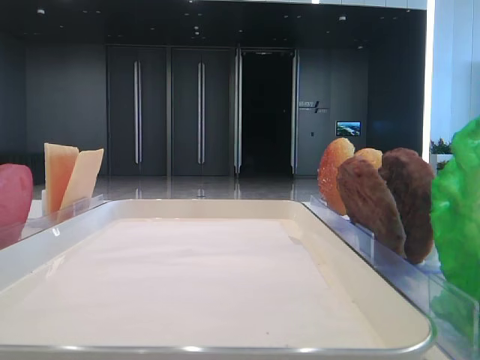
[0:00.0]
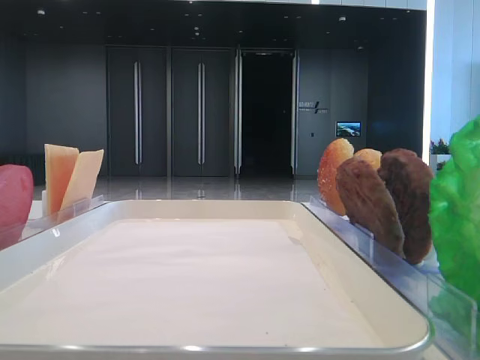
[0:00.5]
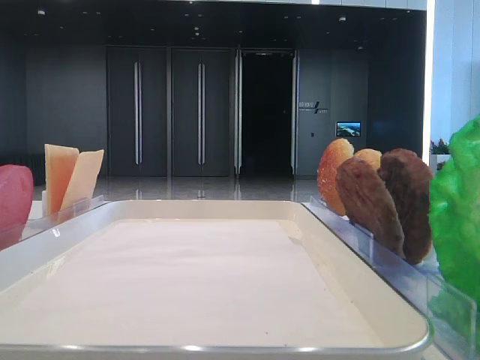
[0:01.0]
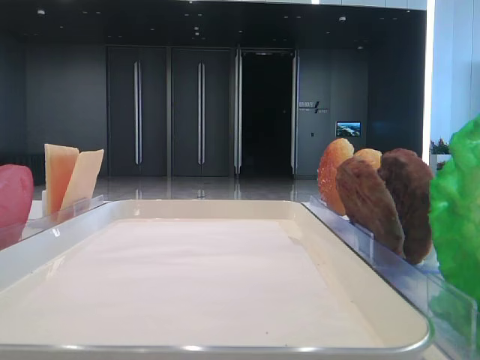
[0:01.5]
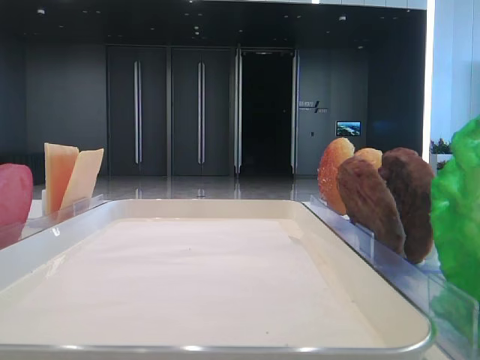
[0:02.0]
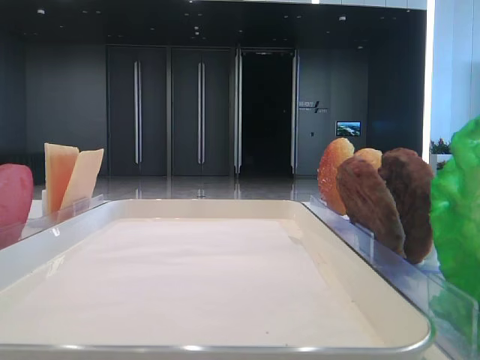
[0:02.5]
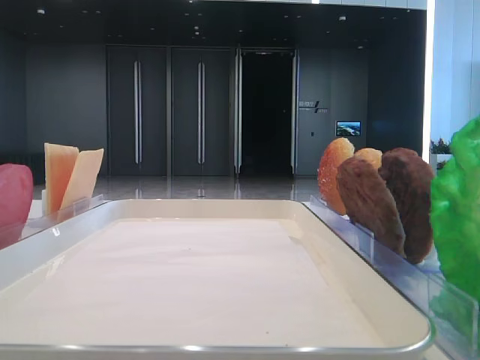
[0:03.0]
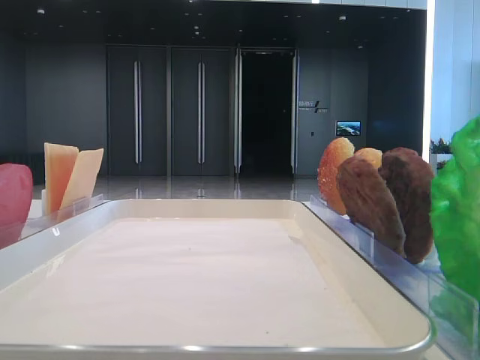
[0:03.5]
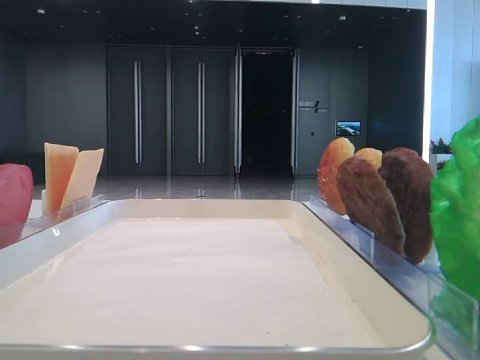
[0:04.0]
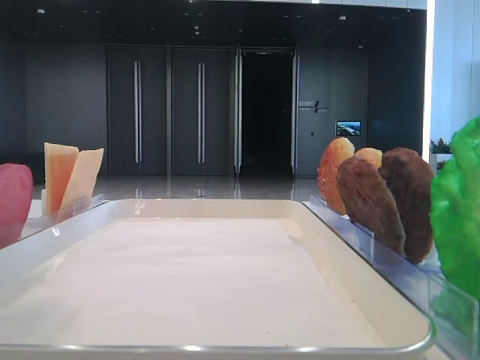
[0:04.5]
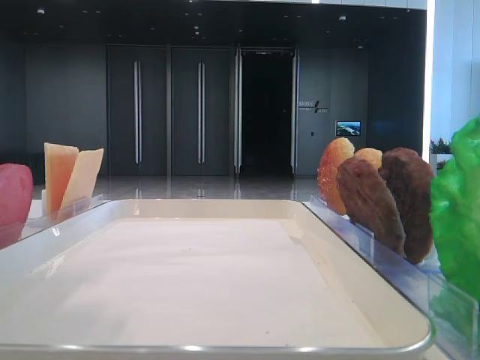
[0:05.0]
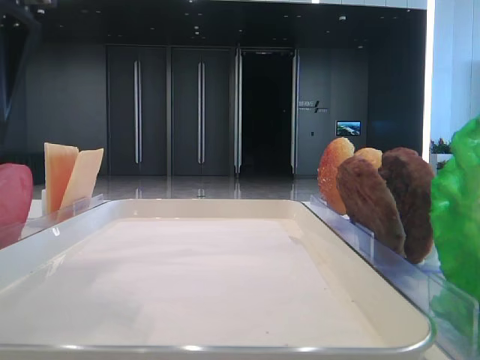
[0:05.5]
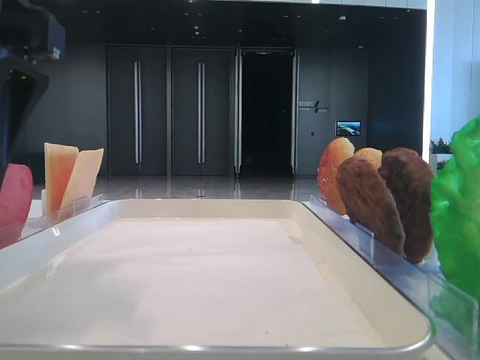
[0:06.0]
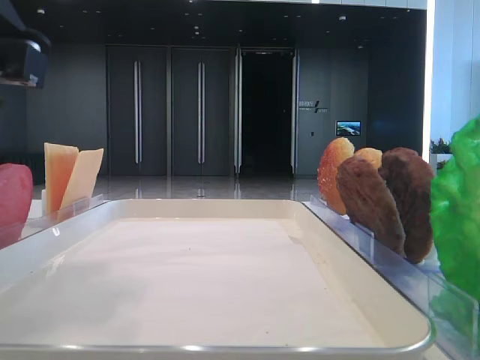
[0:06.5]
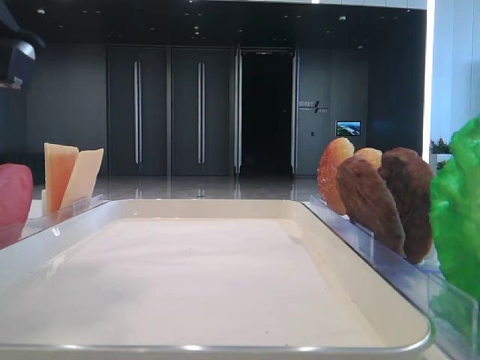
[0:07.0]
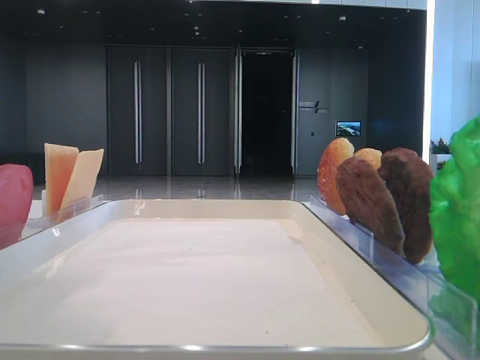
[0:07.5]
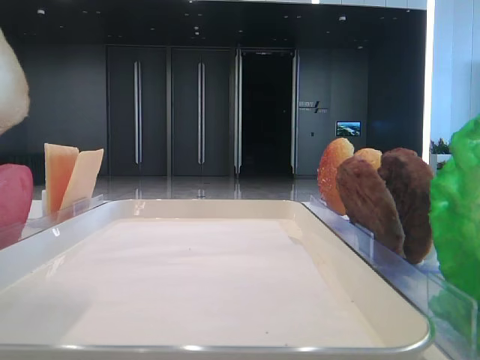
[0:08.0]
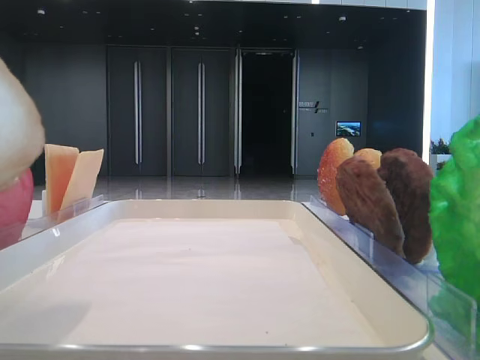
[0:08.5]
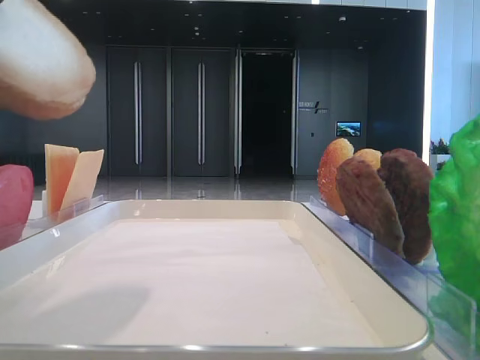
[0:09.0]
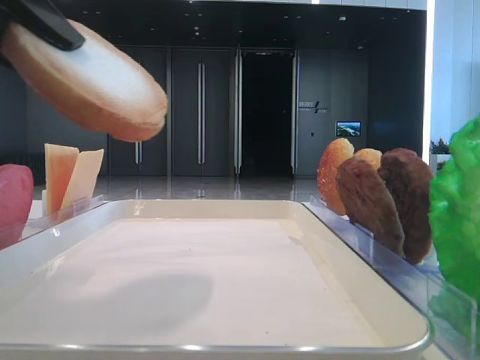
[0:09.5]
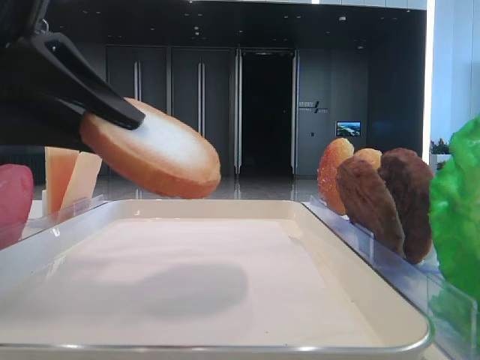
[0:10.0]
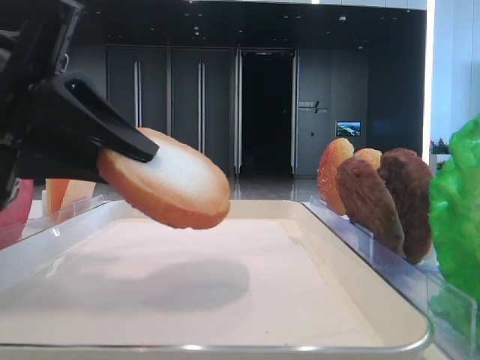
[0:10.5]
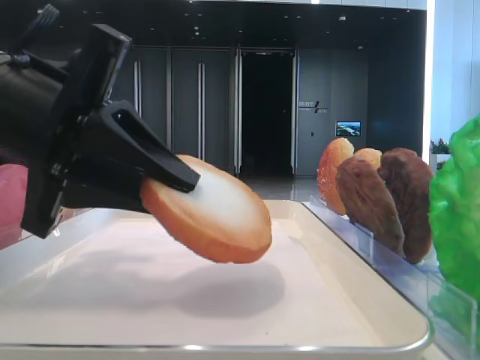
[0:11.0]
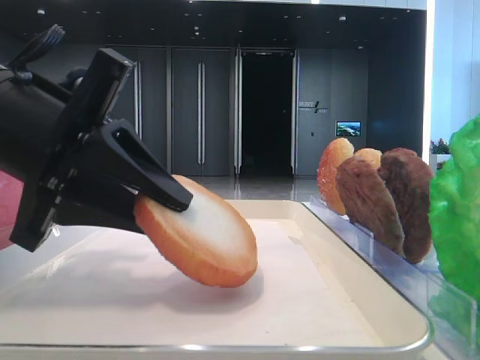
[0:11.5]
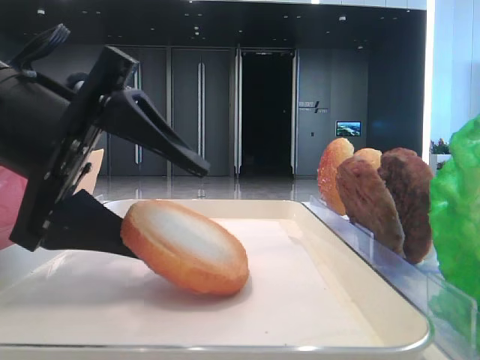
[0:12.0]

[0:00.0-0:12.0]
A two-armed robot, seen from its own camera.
Step, 0:00.0 to 0:06.5: Pick up the bottom bread with the left hand.
0:04.0 to 0:06.0: The left gripper shifts about 20 cm to the right and downward.
0:06.0 to 0:08.0: The left gripper travels upward and backward by approximately 10 cm, and closes.
0:08.0 to 0:10.0: The left gripper is displaced downward and forward by some 15 cm.
0:10.0 to 0:12.0: The left gripper ends up some 5 cm from where it was, and opens up.

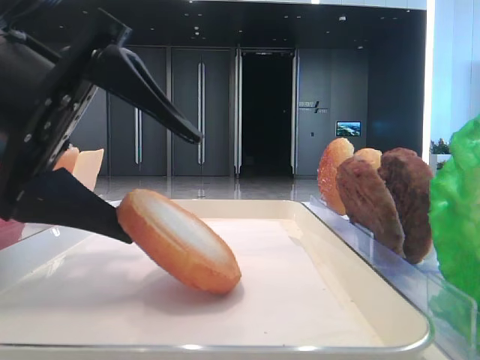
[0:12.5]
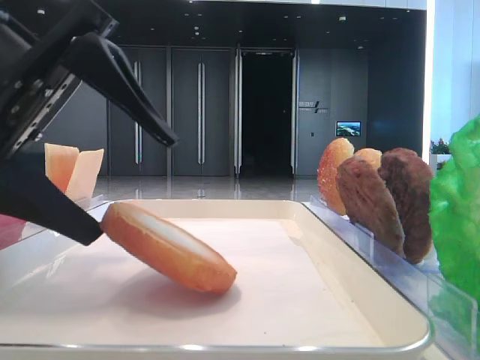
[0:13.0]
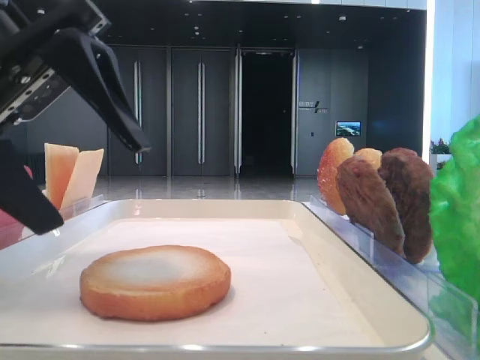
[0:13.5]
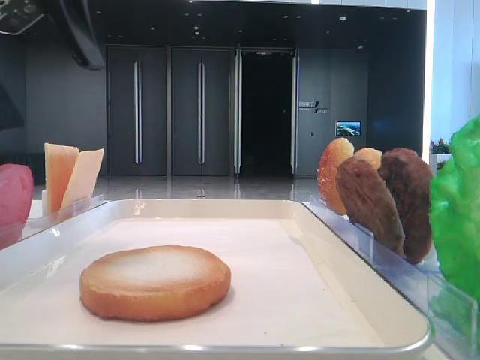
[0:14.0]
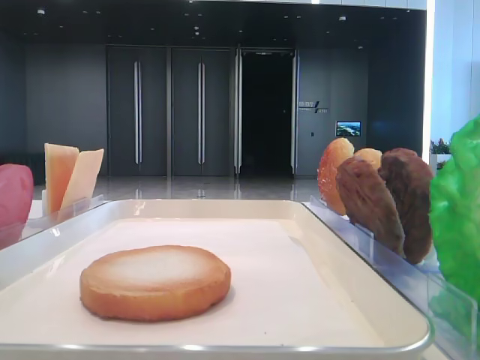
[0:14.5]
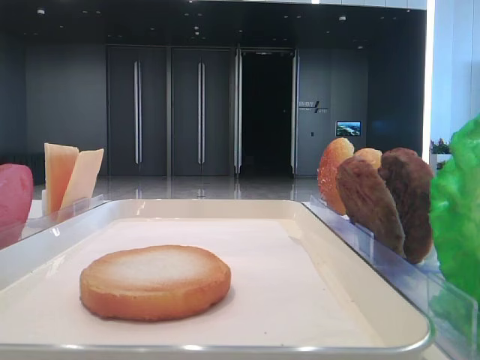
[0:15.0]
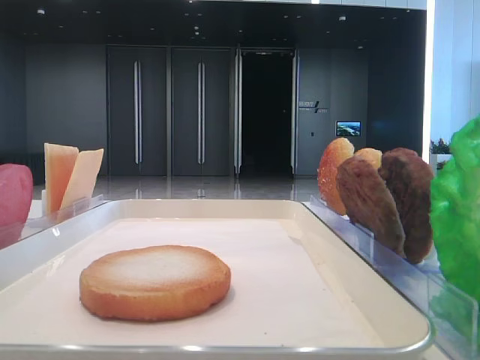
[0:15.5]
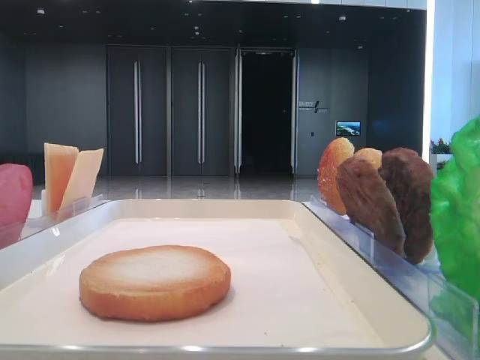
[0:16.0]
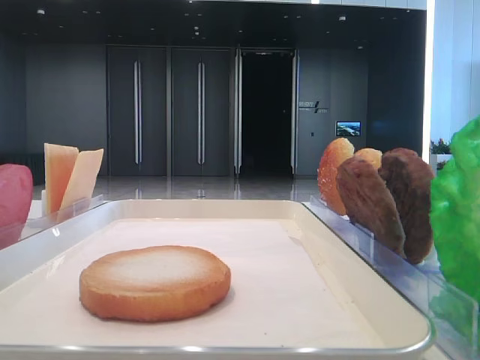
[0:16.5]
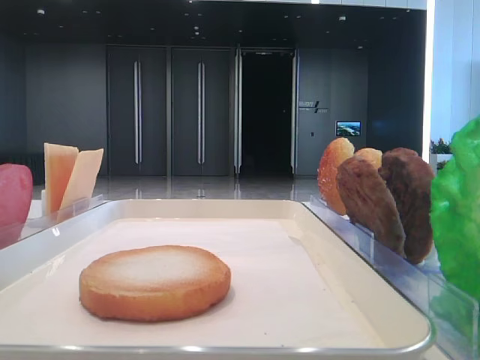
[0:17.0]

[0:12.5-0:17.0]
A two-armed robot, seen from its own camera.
0:12.5 to 0:14.5: The left gripper goes approximately 20 cm upward and to the left.
